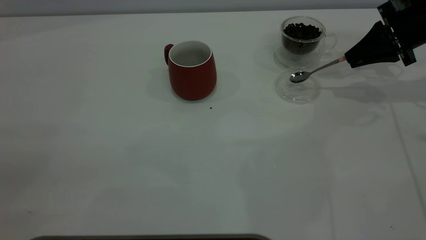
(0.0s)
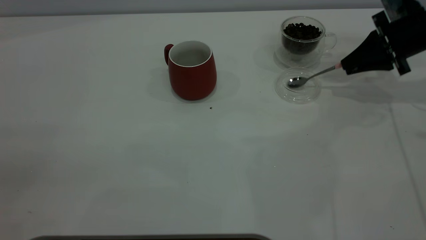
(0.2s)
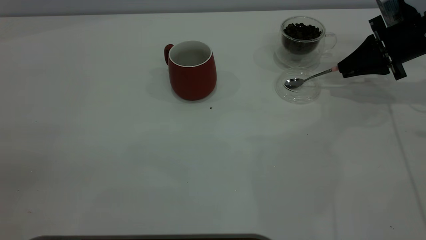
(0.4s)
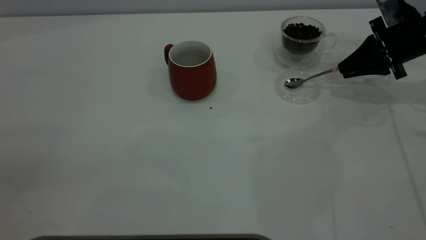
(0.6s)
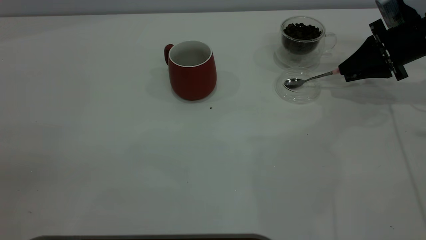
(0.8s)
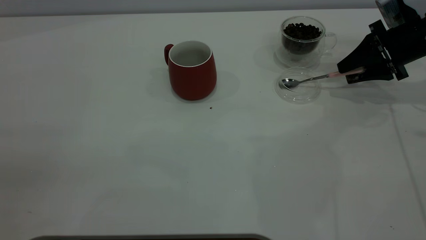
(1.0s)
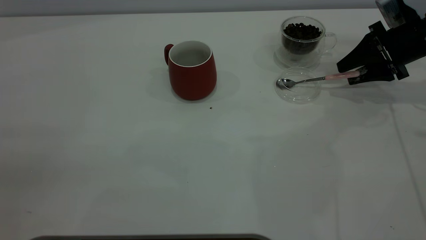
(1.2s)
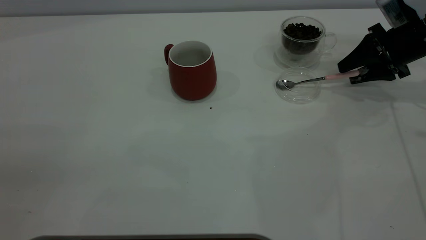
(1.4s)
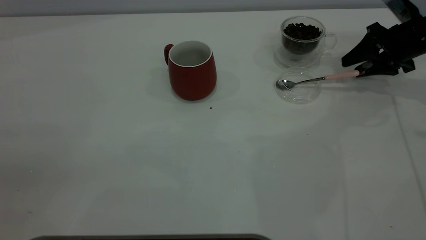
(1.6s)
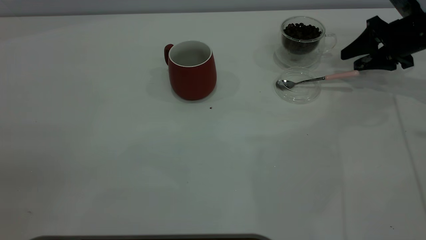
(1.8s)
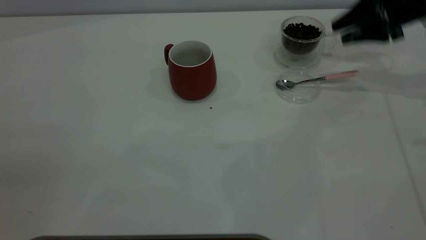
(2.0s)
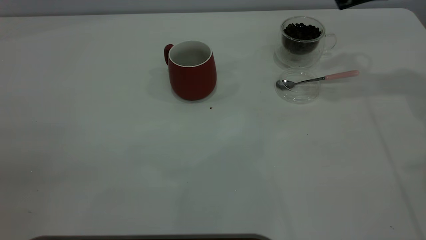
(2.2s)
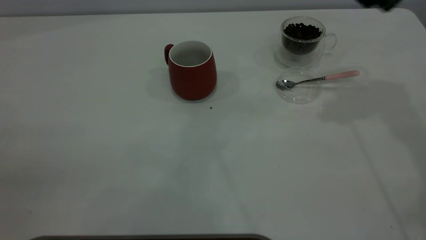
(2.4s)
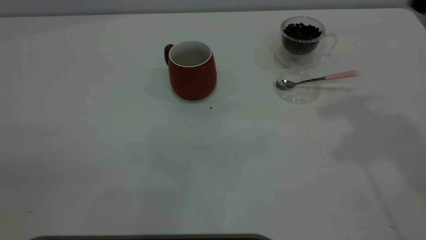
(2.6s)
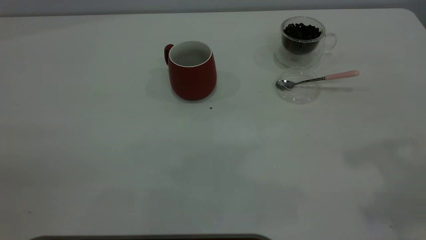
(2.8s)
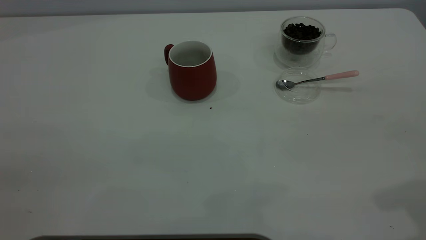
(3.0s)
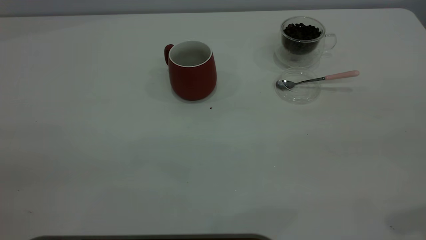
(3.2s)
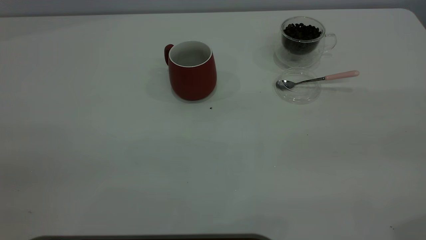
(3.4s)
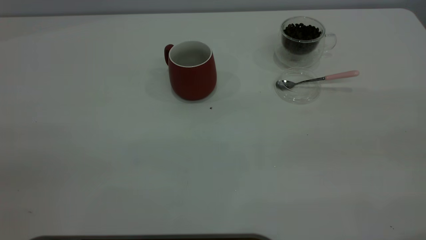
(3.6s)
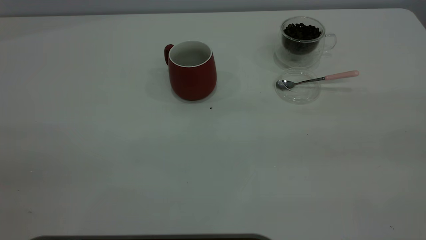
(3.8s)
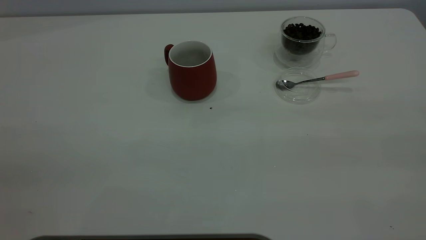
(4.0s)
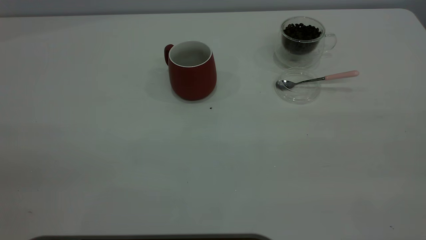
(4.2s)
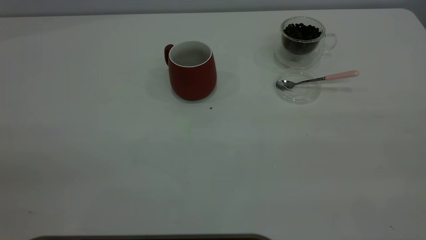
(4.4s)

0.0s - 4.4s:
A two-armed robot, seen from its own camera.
Task of the whole recording: the left gripper place the red cup in the center of the table, the right gripper take the pink spoon from the cup lid and scoop out the coffee beans from the coffee cup and put them into the red cup, the right gripper put the spoon back into the cup lid.
Step, 0.0s - 1.8s: Place the spoon back in its original place.
0.0s - 1.4s: The right gripper opens its fingers.
1.4s - 3.0s: The right gripper goes some 35 cm backward and upward.

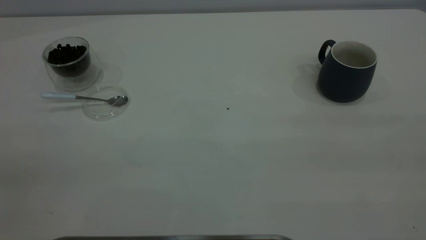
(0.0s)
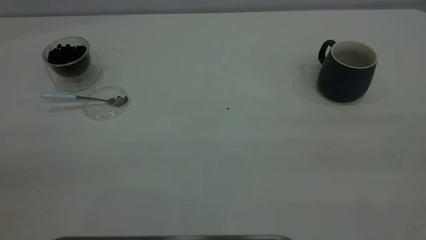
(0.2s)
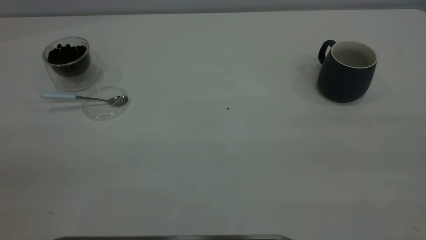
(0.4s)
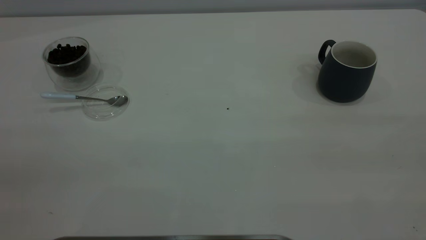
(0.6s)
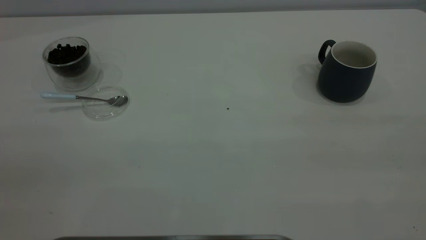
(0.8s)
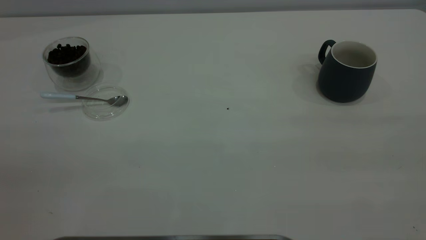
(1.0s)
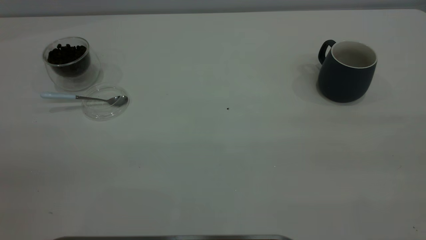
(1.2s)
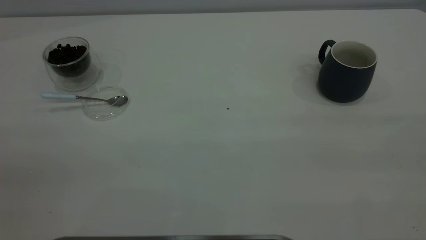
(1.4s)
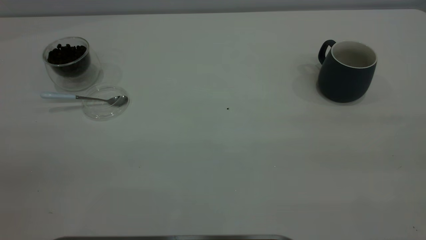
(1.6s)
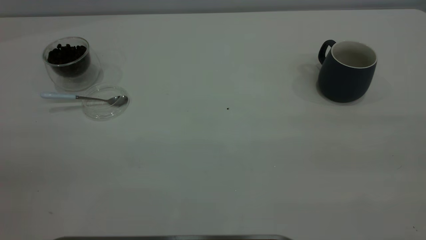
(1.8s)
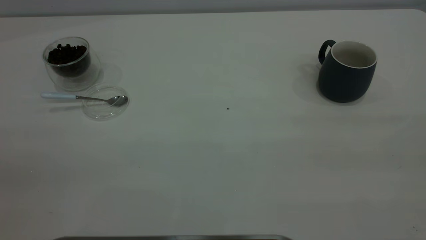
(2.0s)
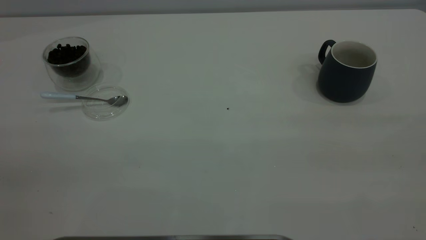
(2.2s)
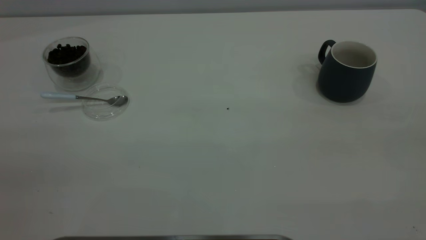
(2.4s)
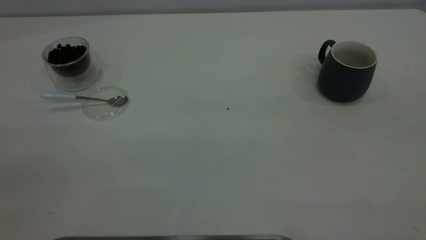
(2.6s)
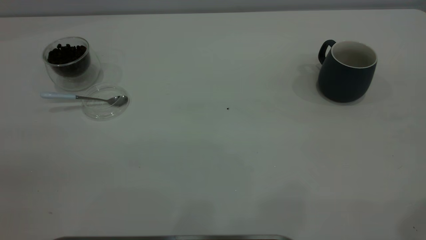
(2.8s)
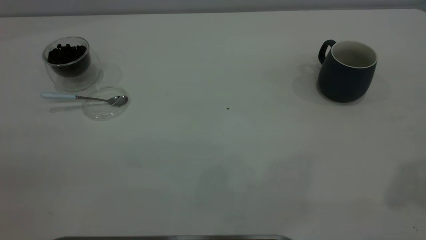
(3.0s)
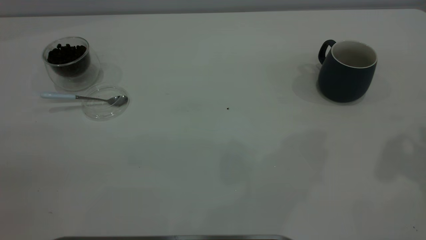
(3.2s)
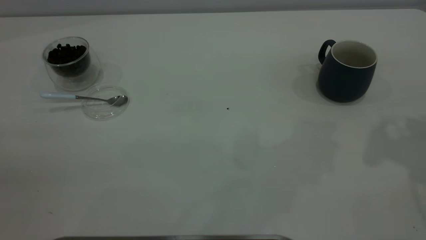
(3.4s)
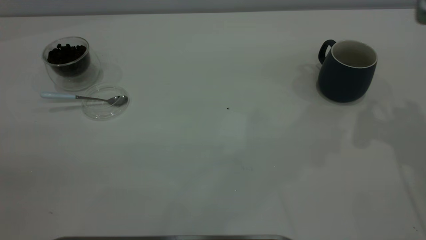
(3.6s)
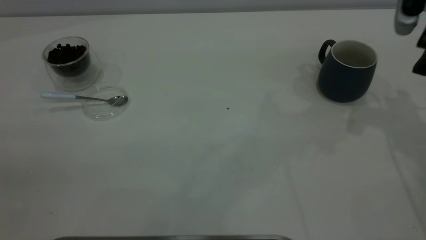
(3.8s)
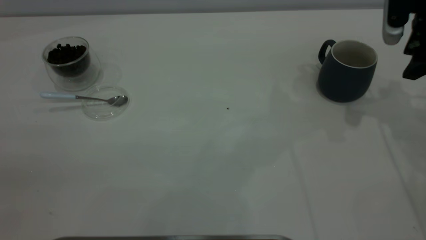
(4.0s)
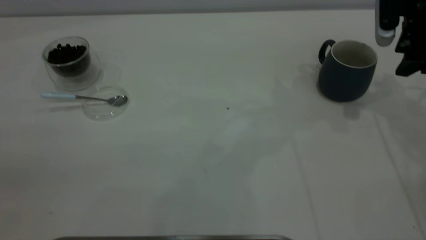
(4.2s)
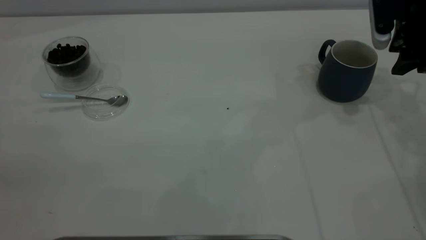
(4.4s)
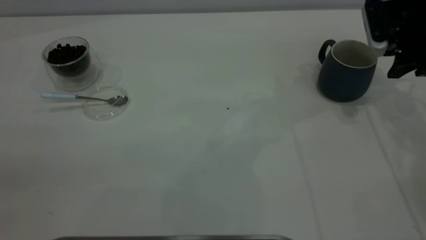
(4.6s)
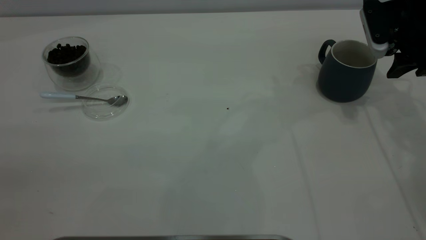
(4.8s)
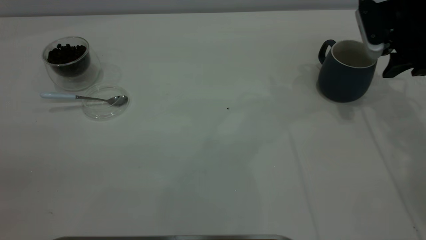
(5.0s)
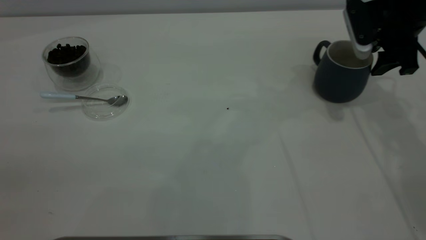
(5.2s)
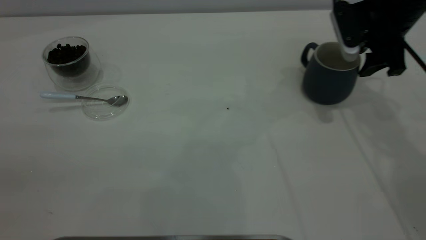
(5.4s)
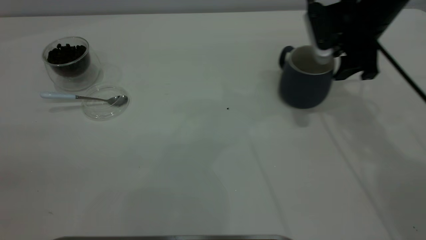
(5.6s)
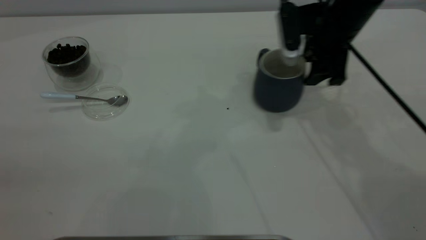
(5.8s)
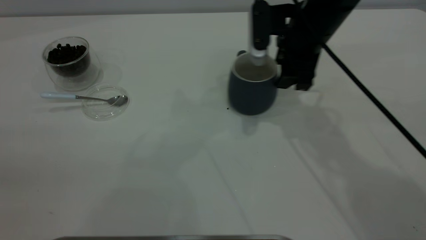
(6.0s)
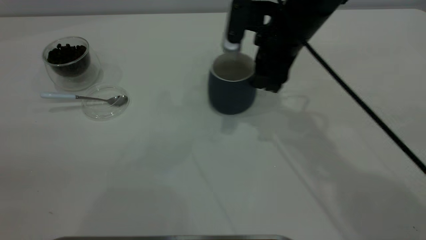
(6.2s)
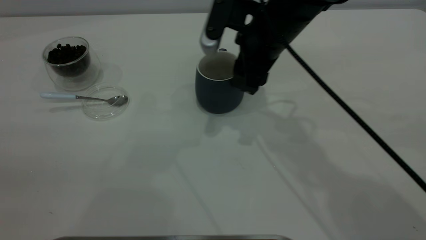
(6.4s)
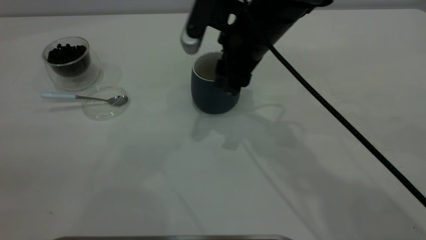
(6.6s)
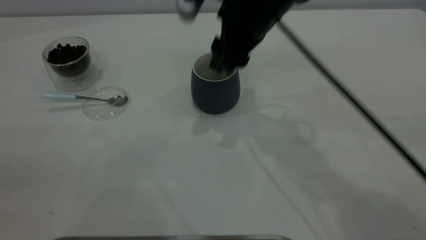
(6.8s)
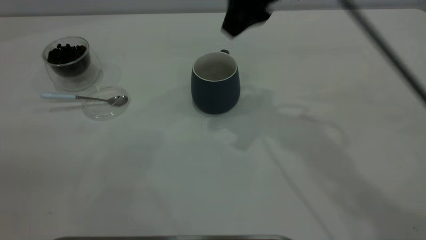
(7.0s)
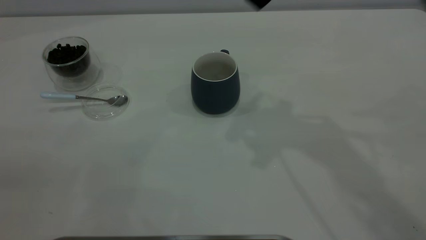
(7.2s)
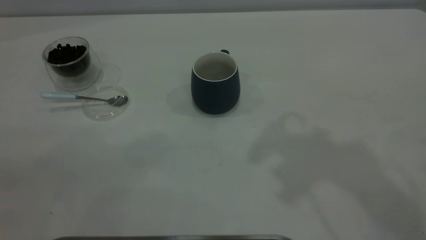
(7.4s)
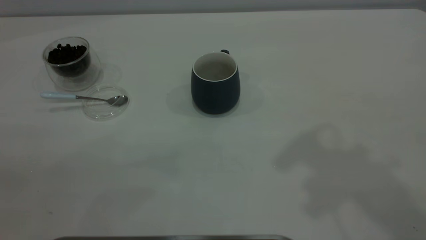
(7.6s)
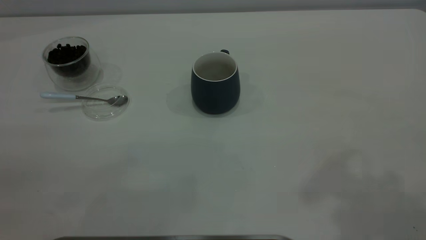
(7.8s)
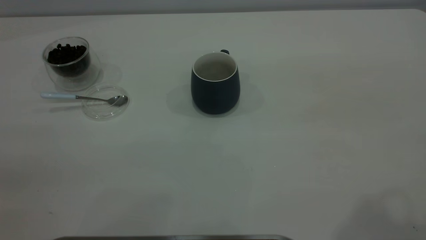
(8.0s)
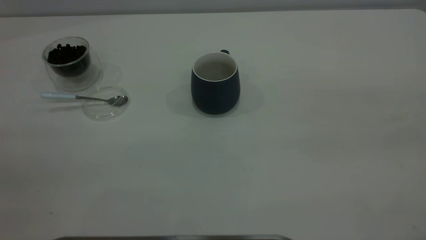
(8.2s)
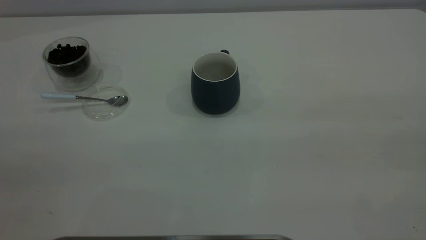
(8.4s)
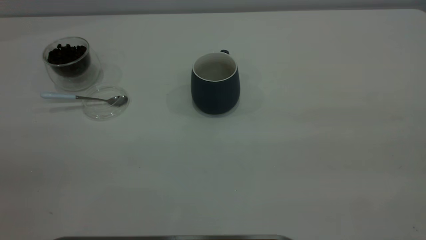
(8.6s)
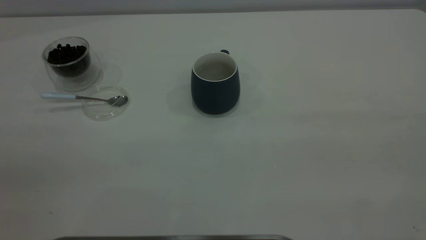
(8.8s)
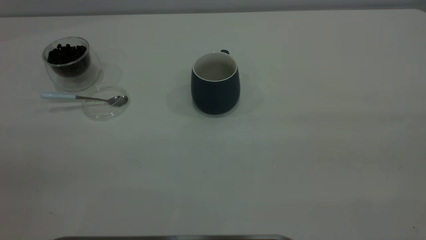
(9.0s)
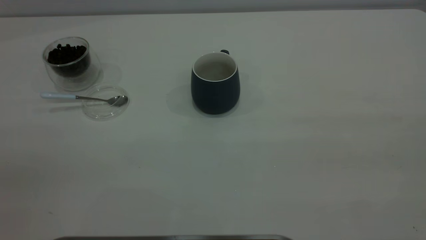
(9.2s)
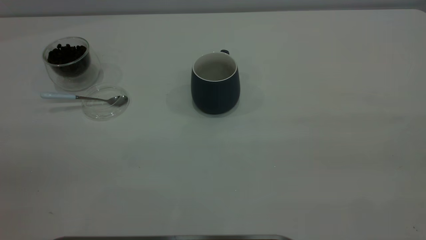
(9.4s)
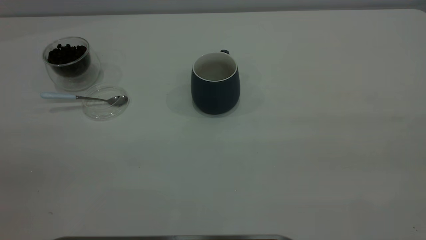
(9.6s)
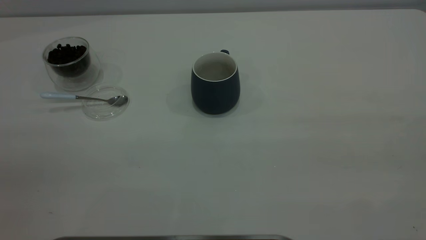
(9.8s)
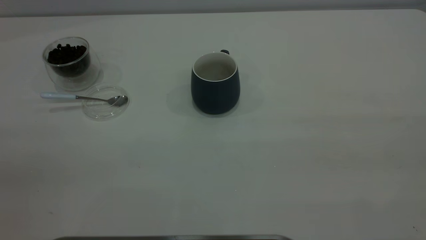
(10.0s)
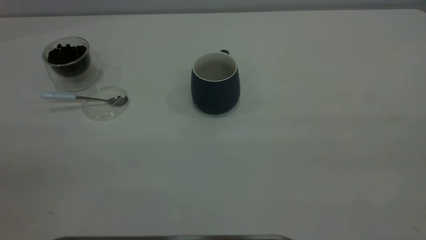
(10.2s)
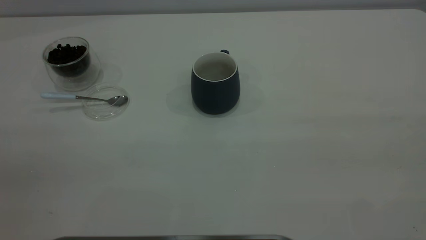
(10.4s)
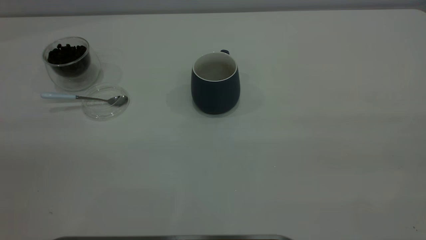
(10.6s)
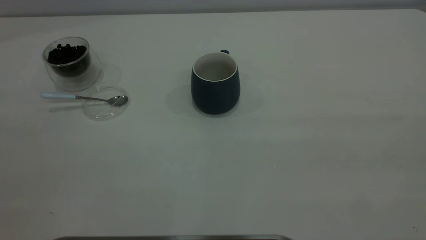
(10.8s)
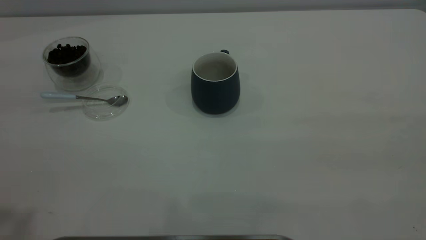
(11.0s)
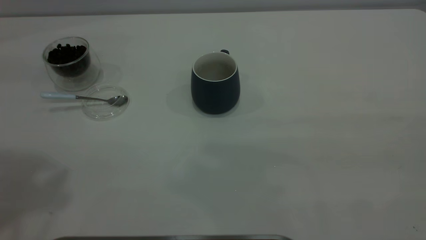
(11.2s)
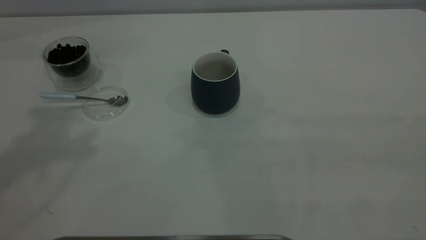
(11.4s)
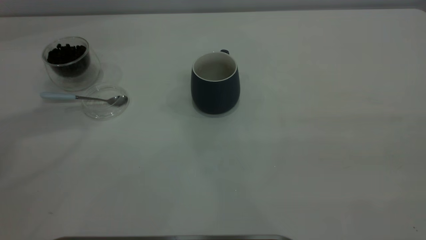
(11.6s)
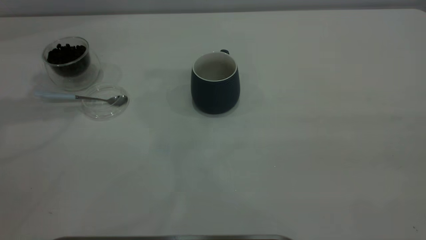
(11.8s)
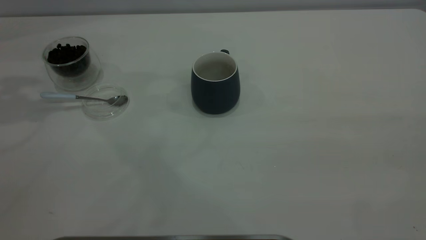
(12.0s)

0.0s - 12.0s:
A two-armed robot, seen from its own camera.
Task of the whole recording: the right gripper place the grey cup in the center of the table, the left gripper take the blue spoon from the cup lid and scoop out the coffee beans from the coffee cup and put them into the grey cup, the left gripper put the spoon back into the cup lid.
Step, 0.0s - 6.8s: Move the cup to the center of view.
0.0s - 1.6s: Both grippers stay put.
3.0s - 4.4s: The right gripper goes about 30 cm forward and downward.
4.4s - 6.0s: The right gripper moves to the left, roughly 20 cm.
6.0s - 7.6s: The right gripper travels upward and backward by approximately 30 cm.
9.0s - 10.4s: Both grippers stay put.
